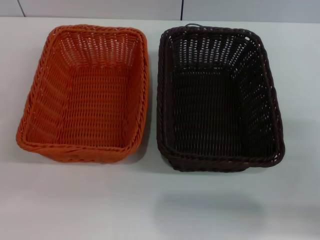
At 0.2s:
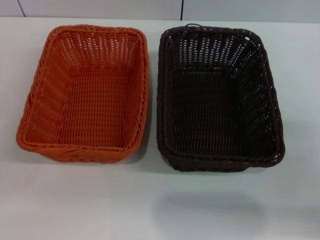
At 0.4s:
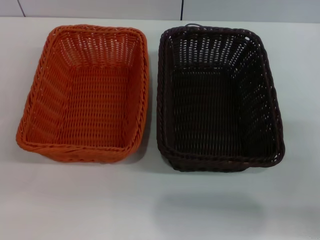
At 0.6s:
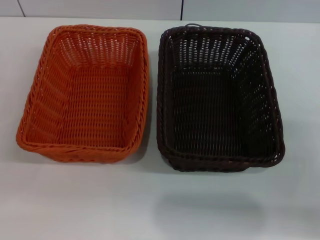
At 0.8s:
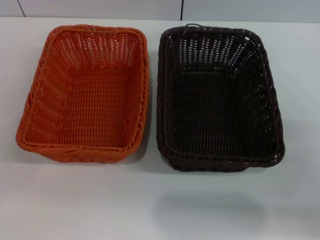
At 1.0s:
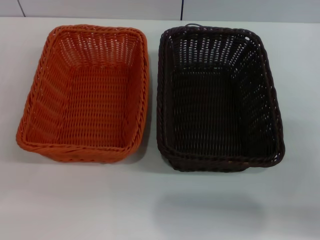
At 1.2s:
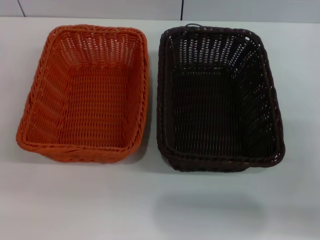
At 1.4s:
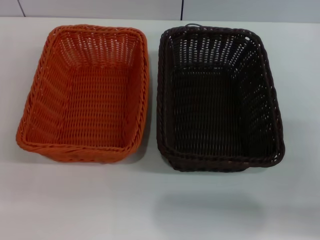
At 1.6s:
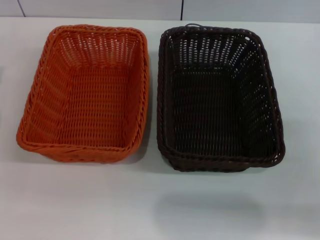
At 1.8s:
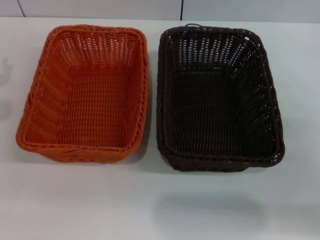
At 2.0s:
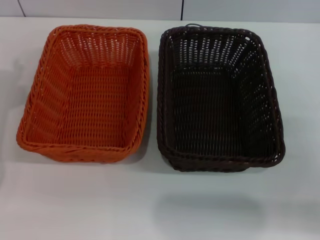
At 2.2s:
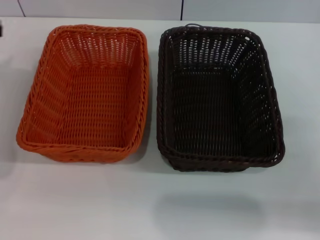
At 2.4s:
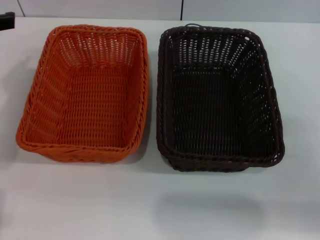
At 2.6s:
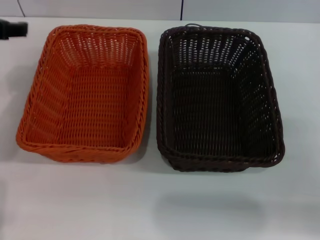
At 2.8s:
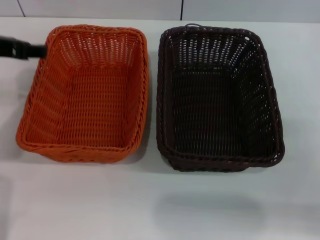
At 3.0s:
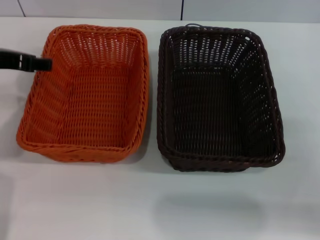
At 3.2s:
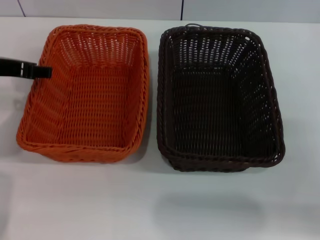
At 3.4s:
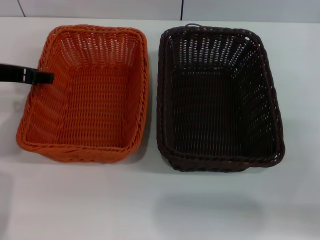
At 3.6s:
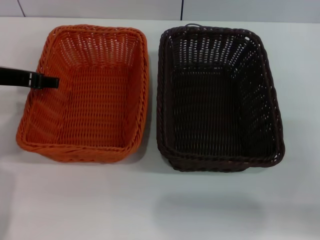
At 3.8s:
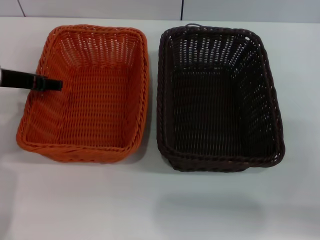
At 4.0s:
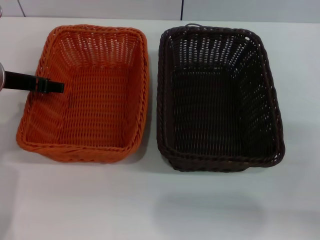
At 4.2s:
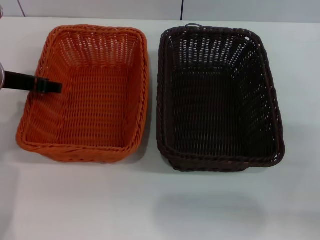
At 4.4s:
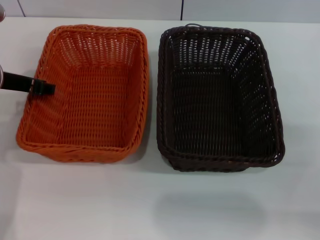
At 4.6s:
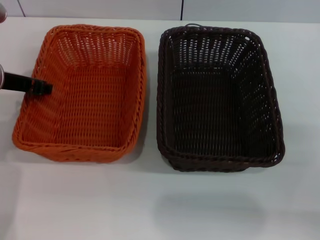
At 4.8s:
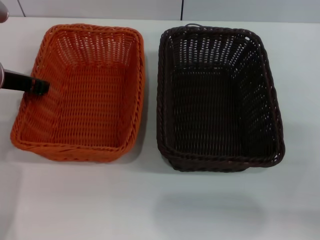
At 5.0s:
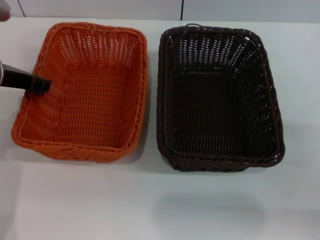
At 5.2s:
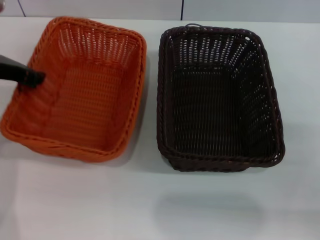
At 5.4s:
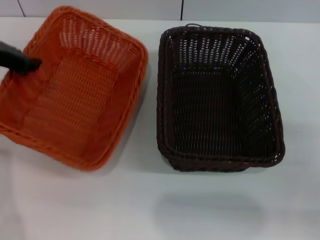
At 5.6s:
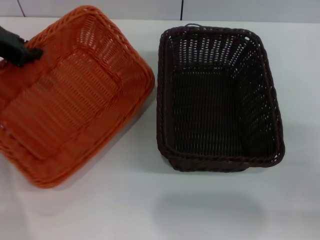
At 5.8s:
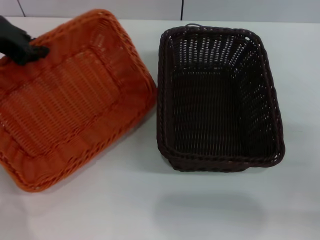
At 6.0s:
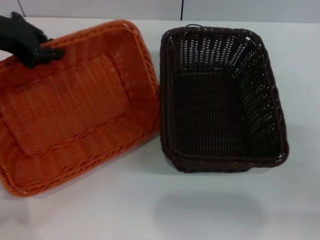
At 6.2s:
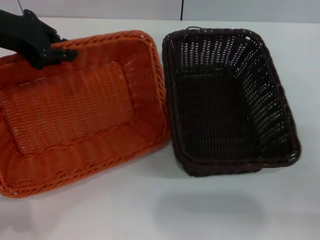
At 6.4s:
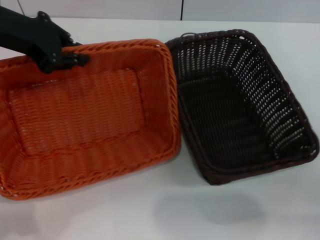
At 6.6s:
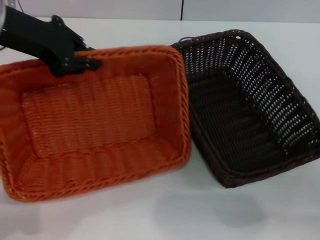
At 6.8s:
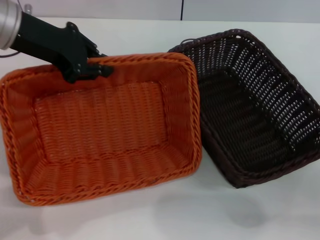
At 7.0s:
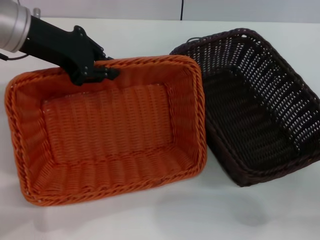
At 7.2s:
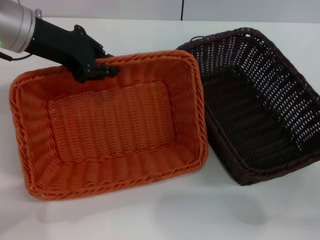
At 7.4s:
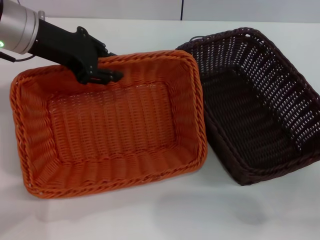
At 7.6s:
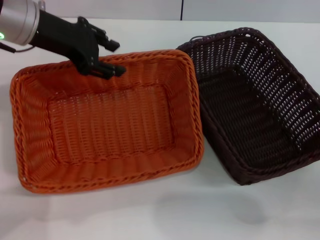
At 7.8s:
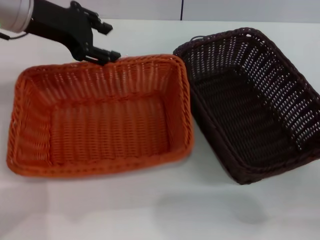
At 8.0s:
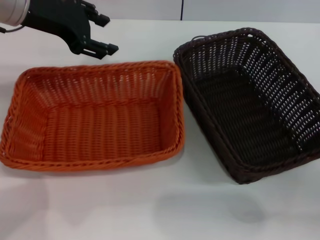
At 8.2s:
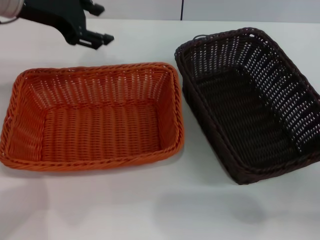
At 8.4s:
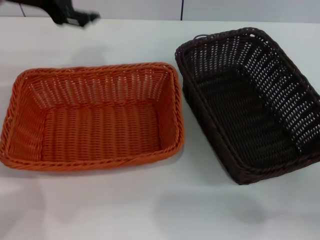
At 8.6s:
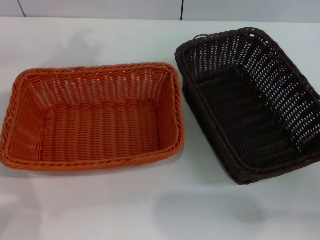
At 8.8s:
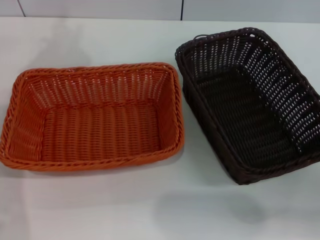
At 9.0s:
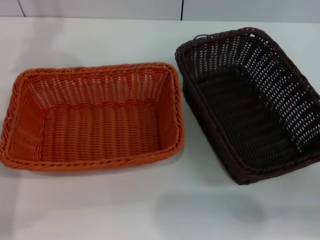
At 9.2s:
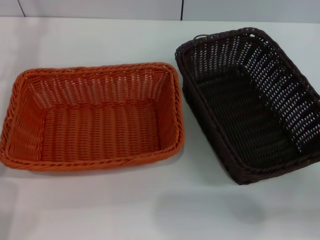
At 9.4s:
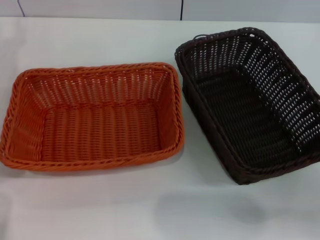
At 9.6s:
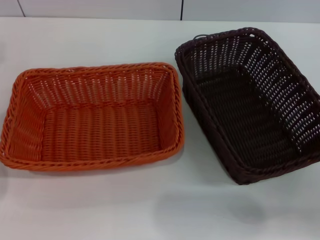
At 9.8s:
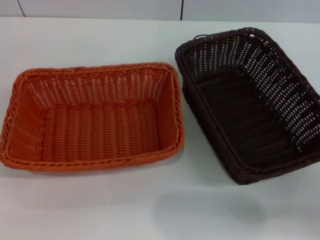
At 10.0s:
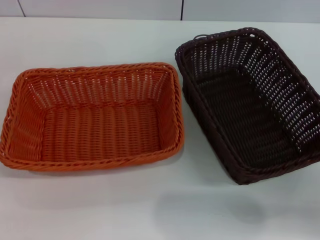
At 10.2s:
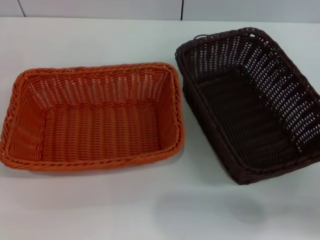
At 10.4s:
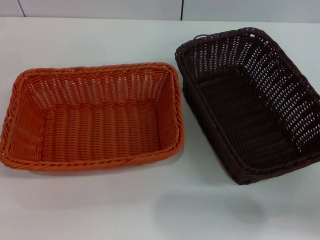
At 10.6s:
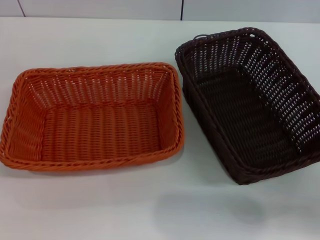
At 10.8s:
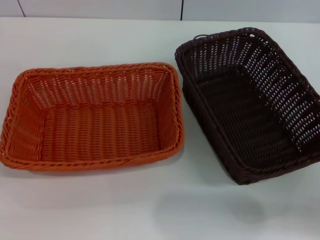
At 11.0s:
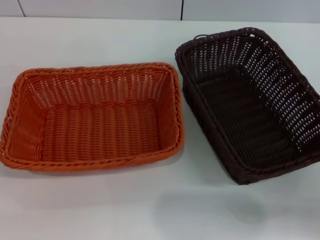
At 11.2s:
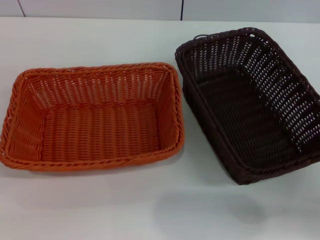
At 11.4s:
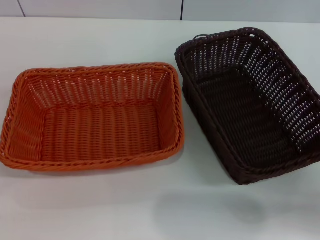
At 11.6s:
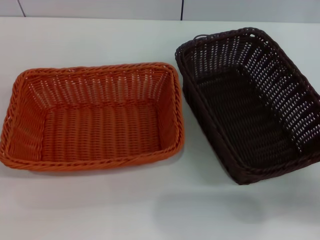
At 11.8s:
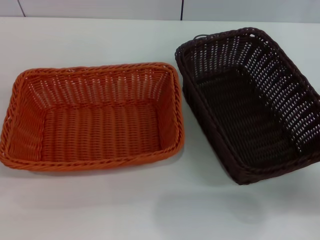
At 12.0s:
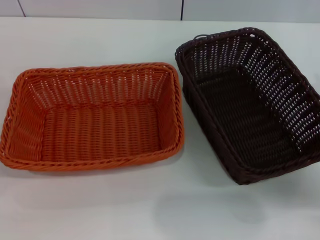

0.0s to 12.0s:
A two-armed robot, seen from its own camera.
Step, 0.0s to 5.8s: Pick up the light basket with the left gripper.
Step, 6.0s to 8.0s: Place the light basket in the center of view with the left gripper.
1.6s to 3.0s: The left gripper is displaced upward and to the right by roughly 10 cm.
3.0s to 4.4s: The grippers stay close to where they were, moving slightly.
4.4s to 6.0s: The left gripper moves upward, roughly 10 cm, and closes.
6.0s to 7.6s: The left gripper shifts approximately 5 cm to the right.
7.6s to 9.0s: The left gripper moves to the left and upward, about 10 cm, and opens its fingers.
10.4s to 12.0s: The right gripper moves approximately 5 cm.

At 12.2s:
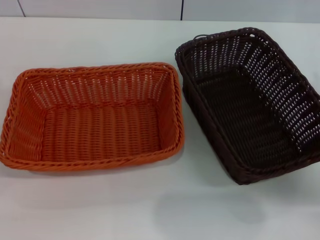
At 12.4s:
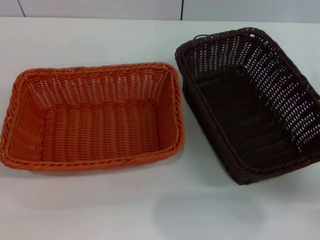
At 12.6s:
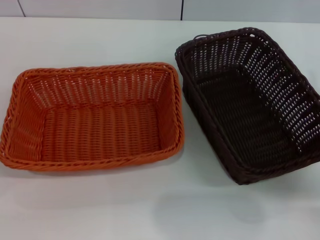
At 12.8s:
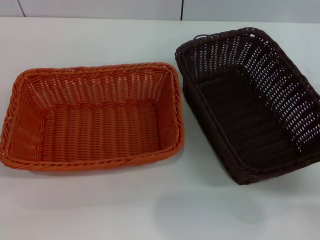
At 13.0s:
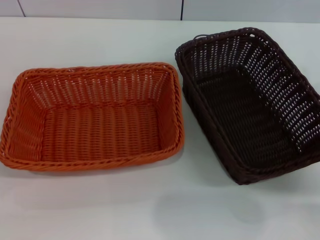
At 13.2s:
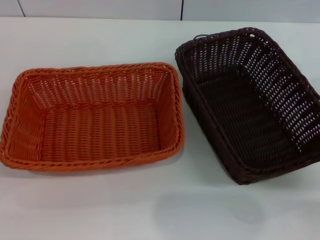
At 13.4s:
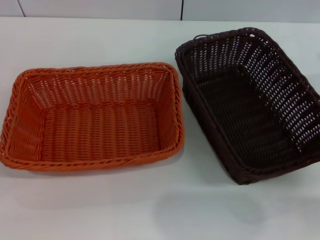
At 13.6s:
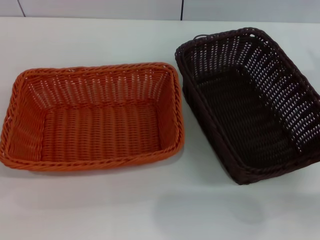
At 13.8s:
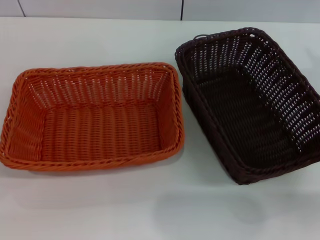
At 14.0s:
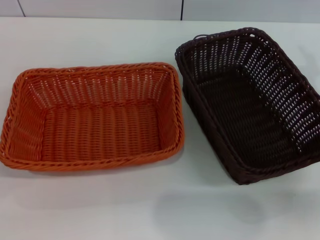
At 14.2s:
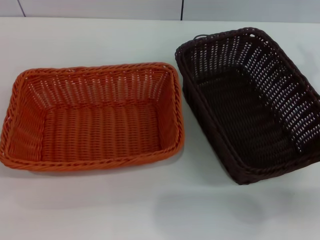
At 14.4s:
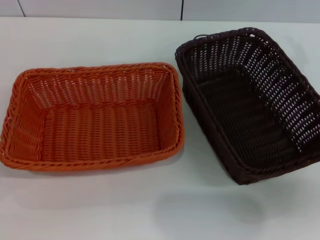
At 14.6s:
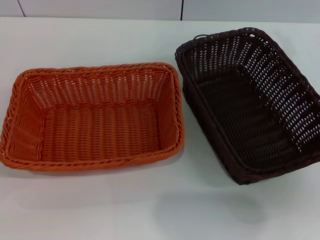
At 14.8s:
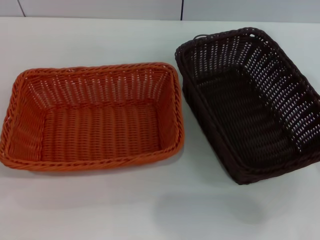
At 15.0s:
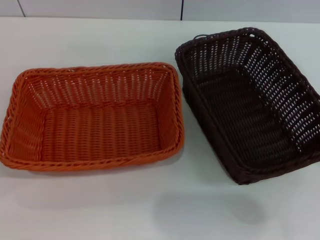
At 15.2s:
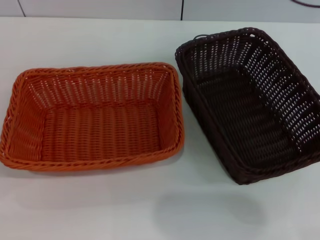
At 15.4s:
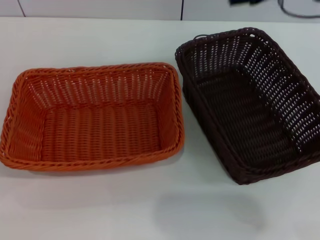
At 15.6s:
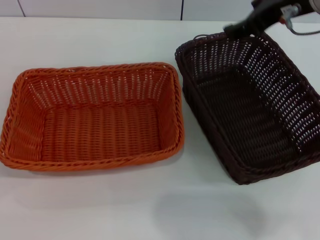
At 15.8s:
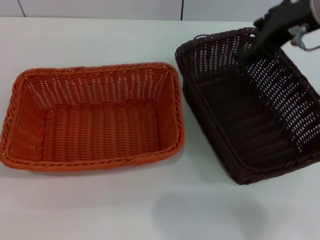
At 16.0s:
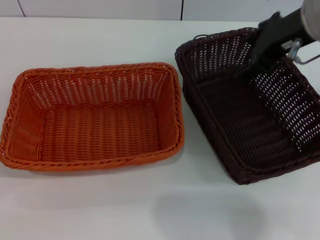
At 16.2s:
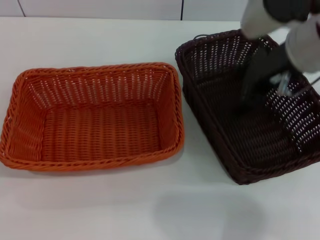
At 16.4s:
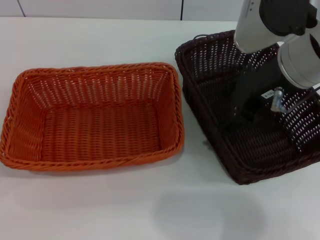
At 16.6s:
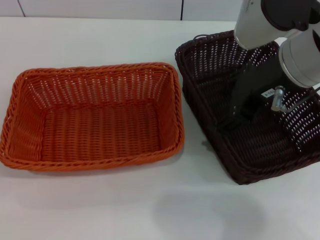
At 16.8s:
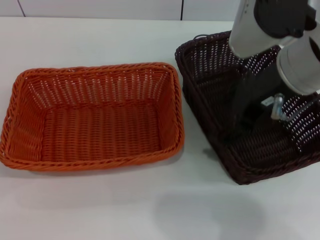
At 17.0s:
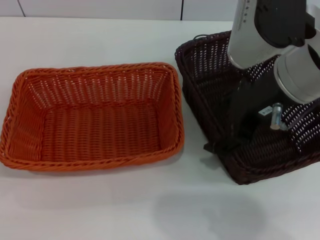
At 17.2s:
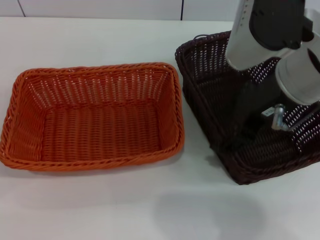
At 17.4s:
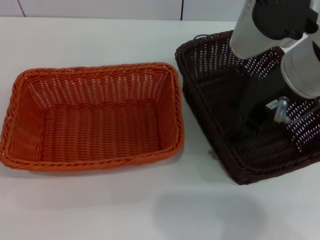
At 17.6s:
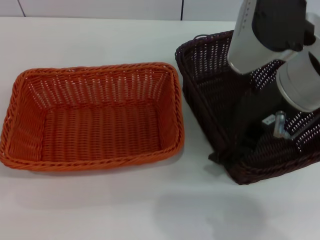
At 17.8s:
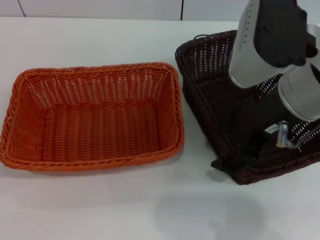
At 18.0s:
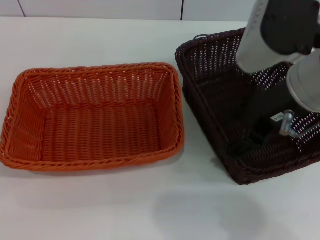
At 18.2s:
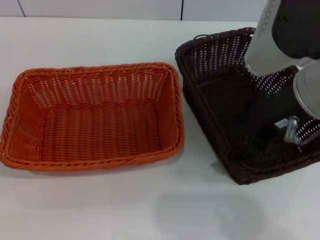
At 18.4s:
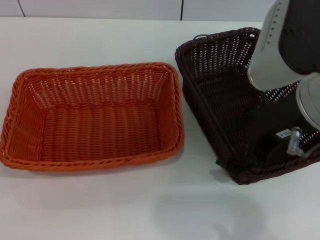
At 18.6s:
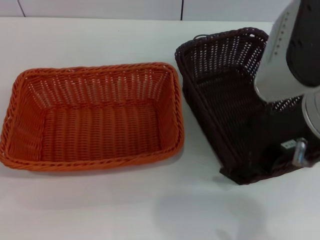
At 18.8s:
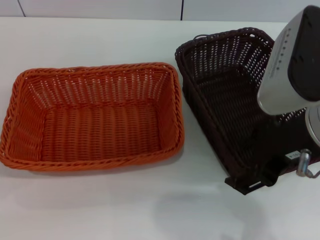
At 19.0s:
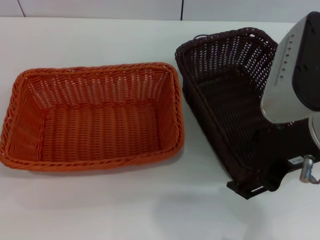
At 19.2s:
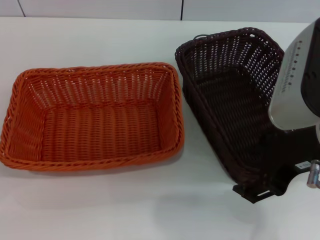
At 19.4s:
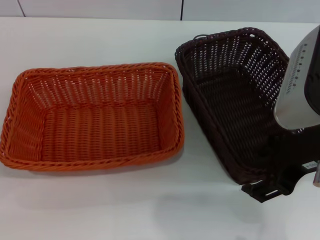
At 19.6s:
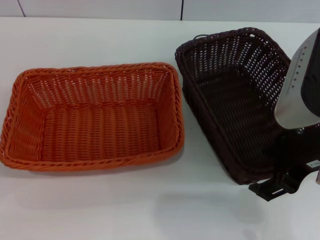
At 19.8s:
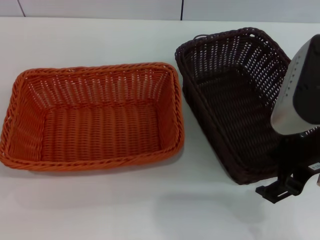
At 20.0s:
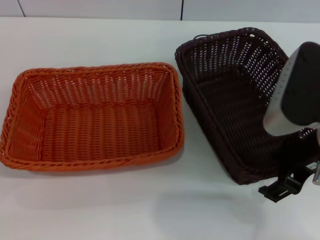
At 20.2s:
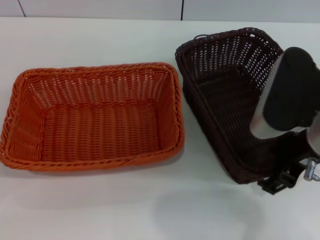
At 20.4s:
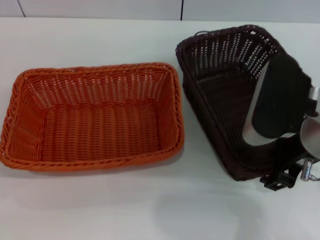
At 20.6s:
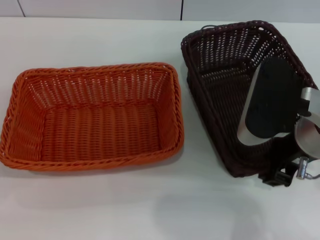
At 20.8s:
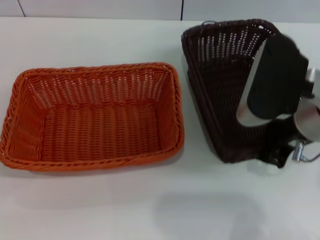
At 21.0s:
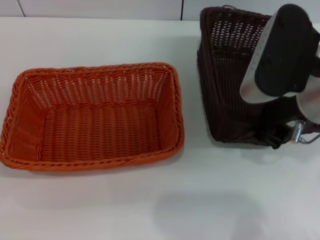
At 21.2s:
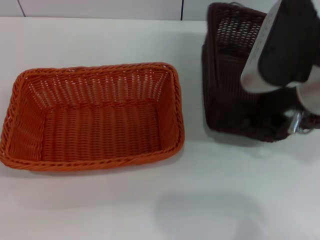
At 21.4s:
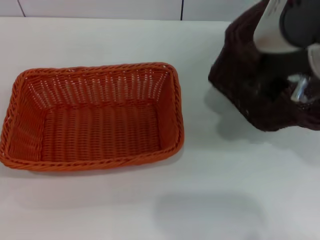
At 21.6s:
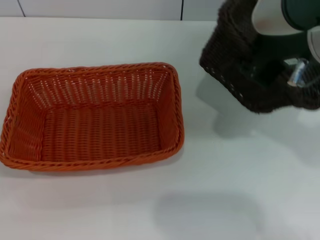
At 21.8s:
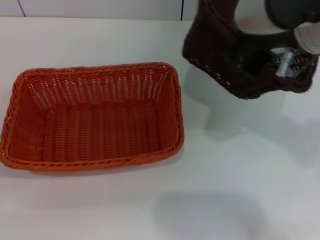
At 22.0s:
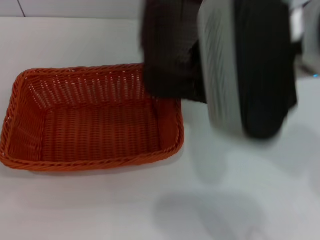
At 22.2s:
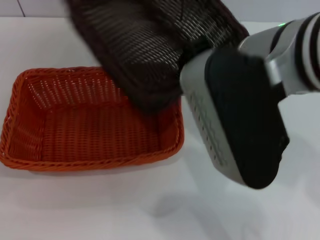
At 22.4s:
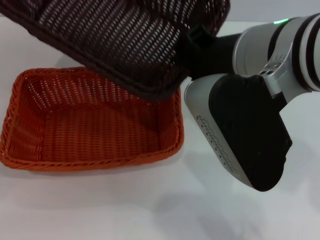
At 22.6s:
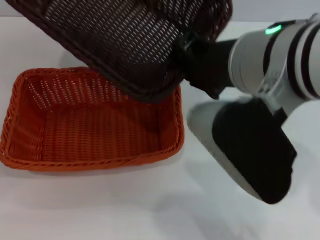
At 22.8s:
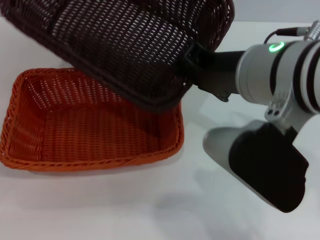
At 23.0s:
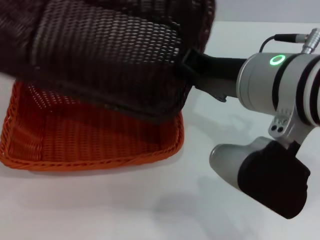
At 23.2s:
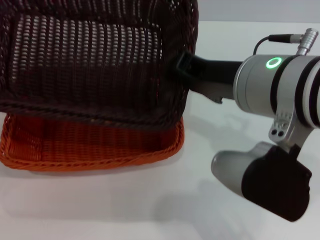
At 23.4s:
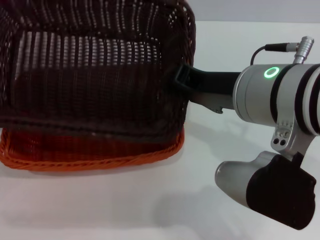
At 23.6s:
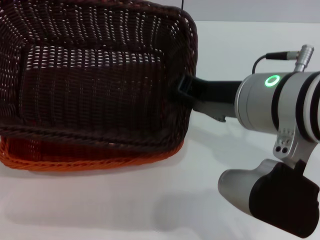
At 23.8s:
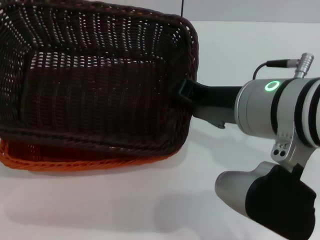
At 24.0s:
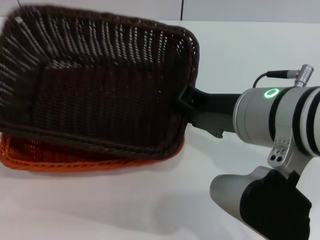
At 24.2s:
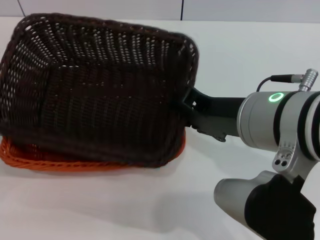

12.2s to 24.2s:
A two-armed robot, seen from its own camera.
Step, 12.2s to 20.8s: Pick up the dark basket with the right gripper.
12.2s to 13.8s: The right gripper shifts by approximately 5 cm.
13.8s to 15.2s: The right gripper heads upward, to the left and forward, covering approximately 15 cm.
15.2s to 16.6s: The right gripper travels backward by roughly 5 cm.
16.6s to 18.2s: There are only small adjustments of the grippers.
18.2s to 19.8s: The right gripper moves approximately 5 cm.
19.8s to 21.2s: The right gripper closes.
21.2s to 22.6s: The right gripper moves to the left, roughly 5 cm.
22.6s to 24.2s: The right gripper shifts by roughly 5 cm.
